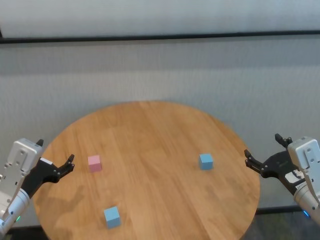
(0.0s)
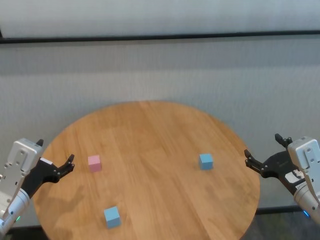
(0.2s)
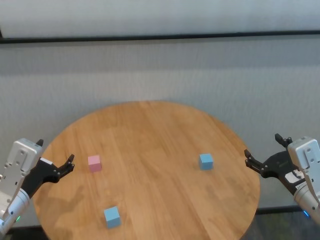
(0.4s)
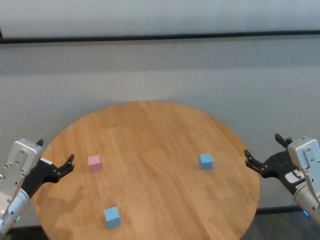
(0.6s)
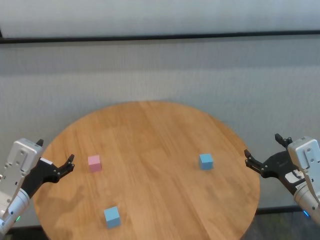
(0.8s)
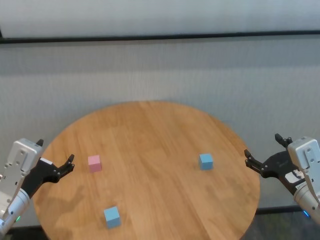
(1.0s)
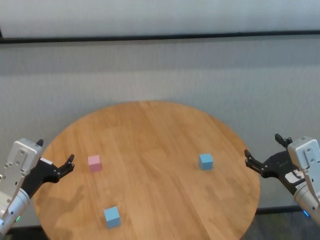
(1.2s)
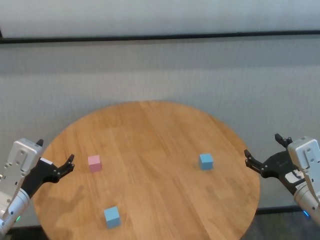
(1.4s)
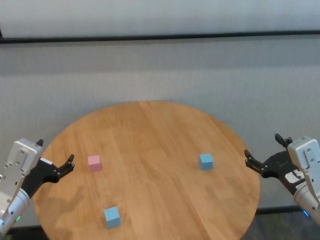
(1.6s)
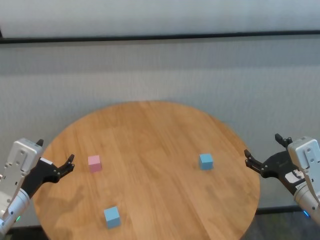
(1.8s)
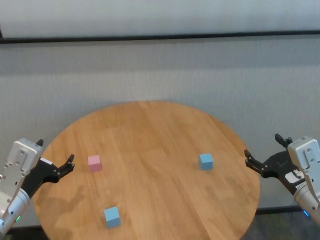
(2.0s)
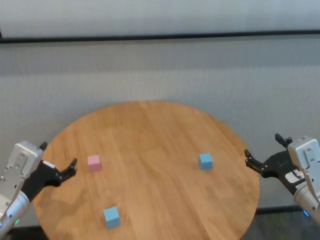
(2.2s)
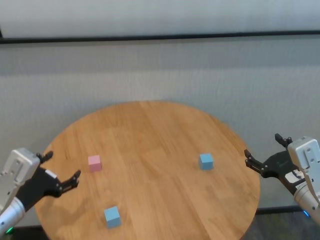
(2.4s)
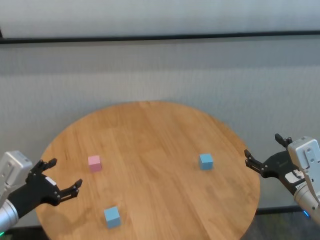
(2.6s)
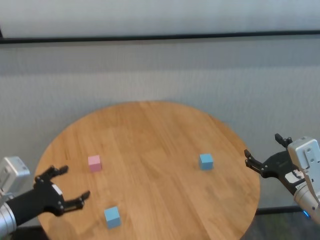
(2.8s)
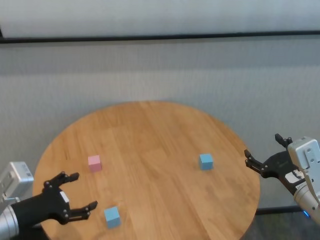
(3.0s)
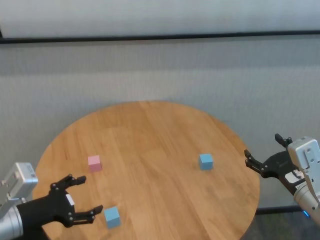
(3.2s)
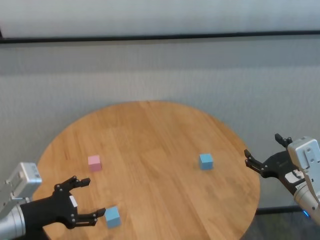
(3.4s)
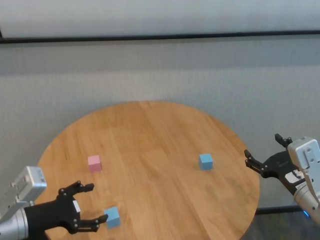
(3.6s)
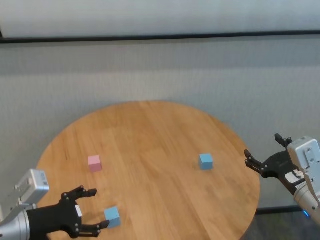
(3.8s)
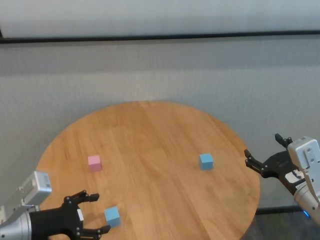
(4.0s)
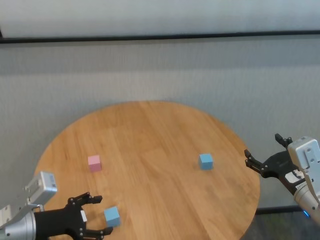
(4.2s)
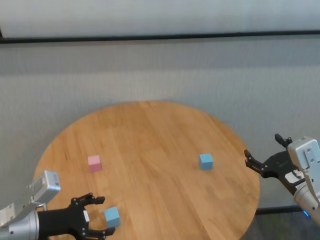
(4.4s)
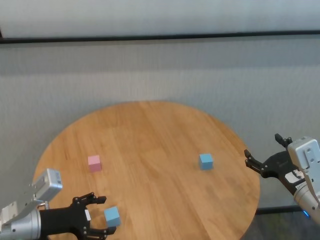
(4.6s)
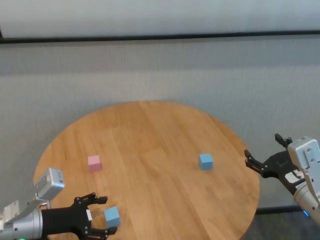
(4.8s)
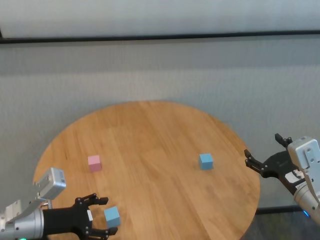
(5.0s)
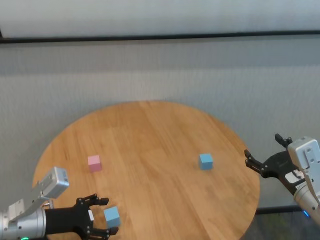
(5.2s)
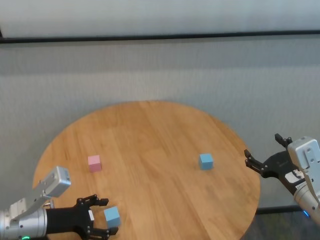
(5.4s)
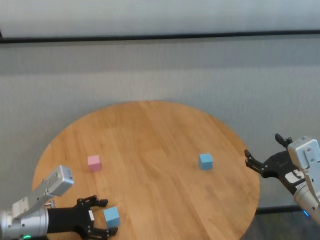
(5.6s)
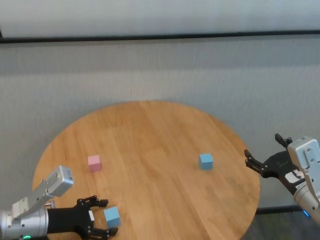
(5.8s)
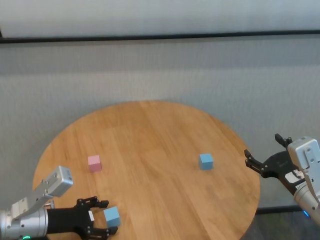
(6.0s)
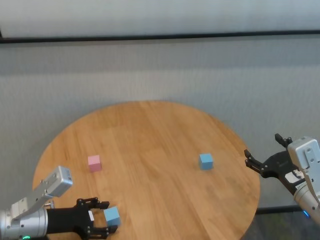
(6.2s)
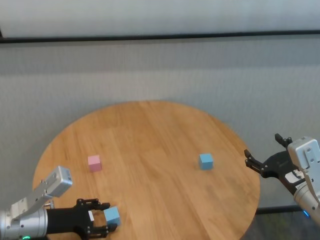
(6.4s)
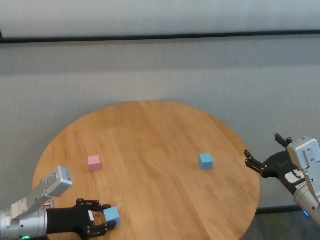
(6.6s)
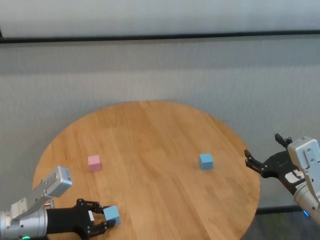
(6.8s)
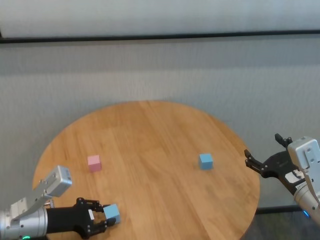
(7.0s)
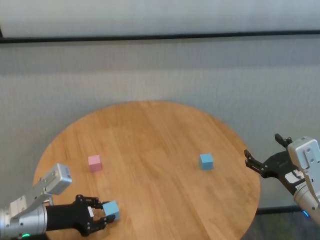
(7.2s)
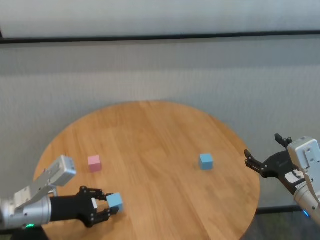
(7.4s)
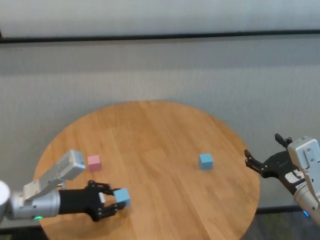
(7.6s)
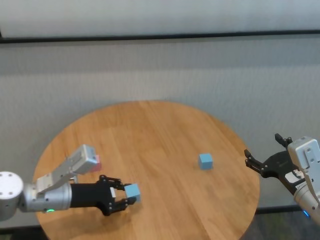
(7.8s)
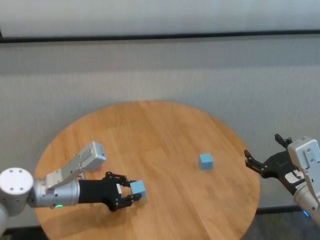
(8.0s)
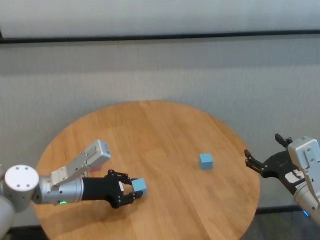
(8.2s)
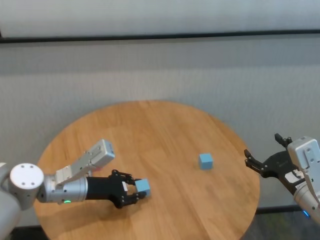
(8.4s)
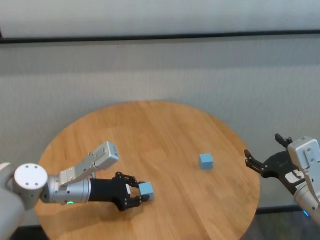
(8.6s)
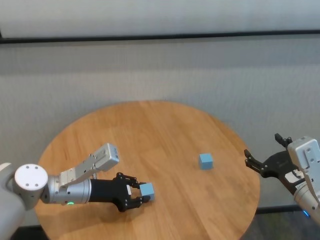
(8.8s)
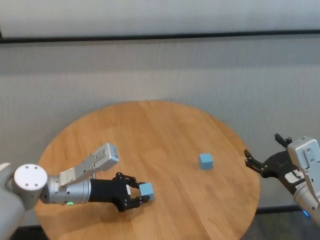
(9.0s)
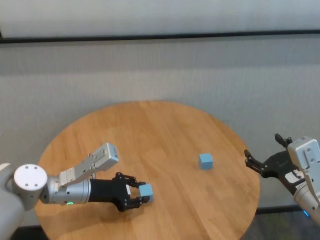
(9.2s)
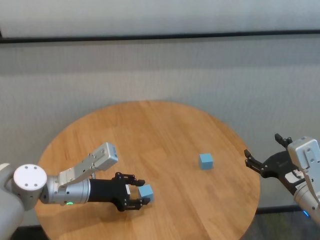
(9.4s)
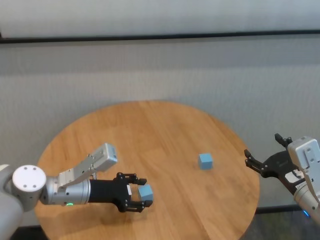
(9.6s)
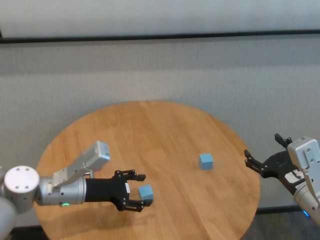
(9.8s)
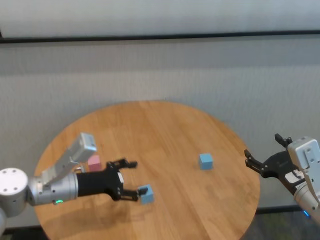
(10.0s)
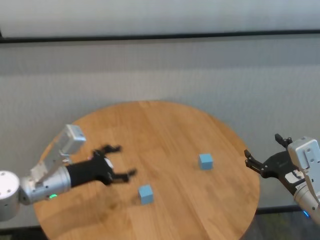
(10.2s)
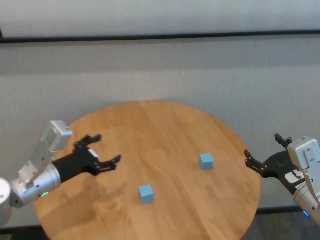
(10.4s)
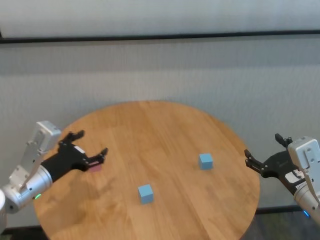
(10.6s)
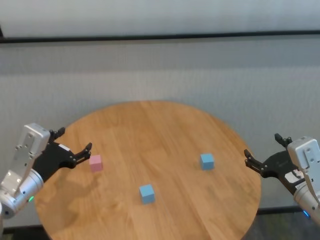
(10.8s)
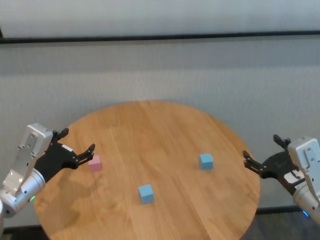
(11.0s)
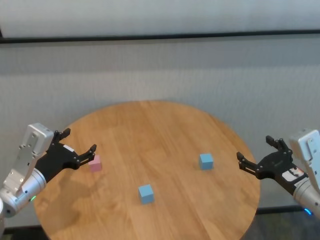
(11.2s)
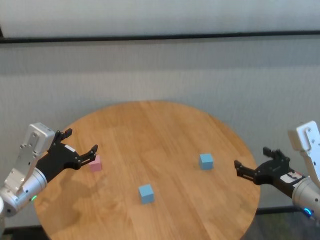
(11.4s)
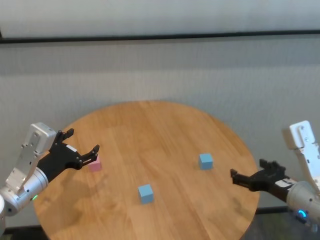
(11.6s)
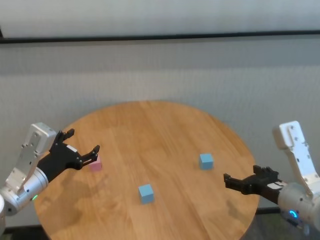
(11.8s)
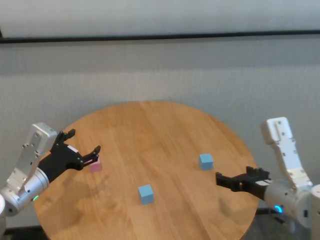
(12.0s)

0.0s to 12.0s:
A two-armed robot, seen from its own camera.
Task of the whole recording: stack building blocks on the table.
Step, 0.0s to 6.6s: Grasp the blue building block with left gripper.
Step, 7.0s to 9.4s: Place the blue building block in the center of table with left gripper.

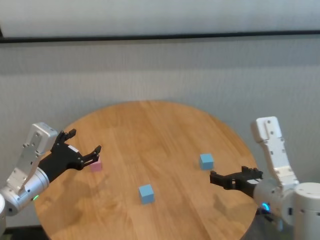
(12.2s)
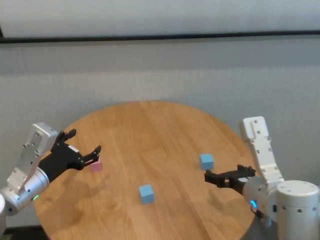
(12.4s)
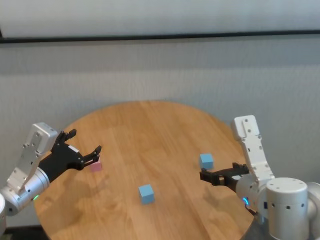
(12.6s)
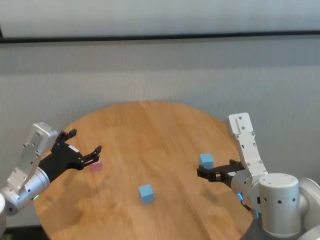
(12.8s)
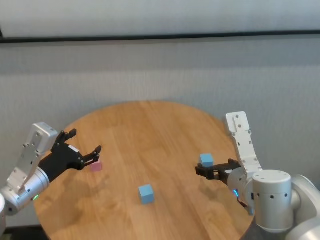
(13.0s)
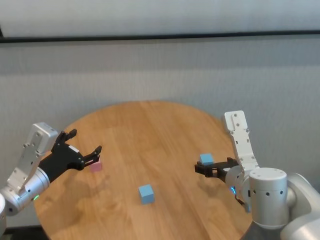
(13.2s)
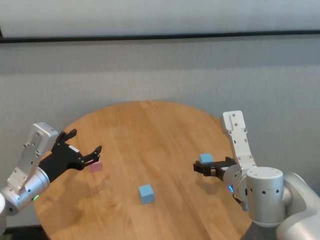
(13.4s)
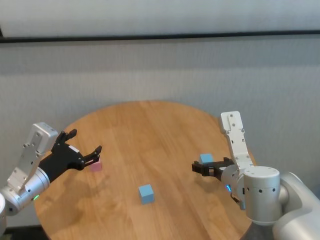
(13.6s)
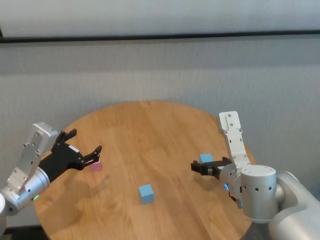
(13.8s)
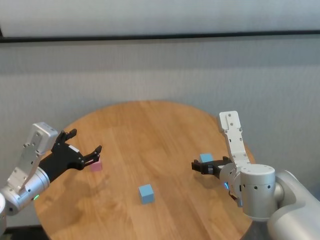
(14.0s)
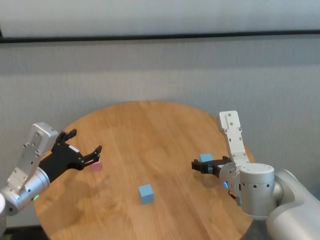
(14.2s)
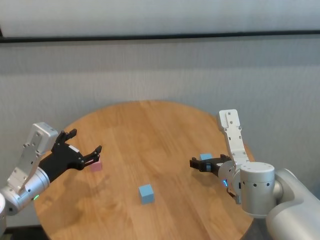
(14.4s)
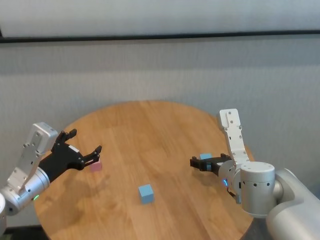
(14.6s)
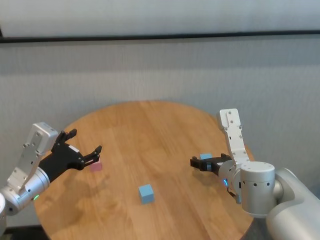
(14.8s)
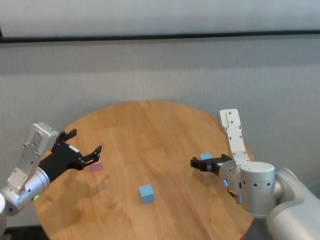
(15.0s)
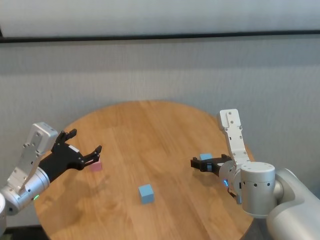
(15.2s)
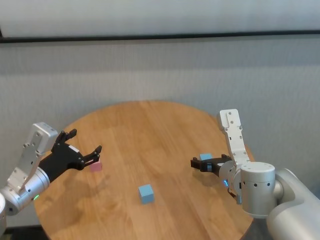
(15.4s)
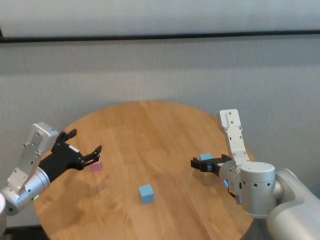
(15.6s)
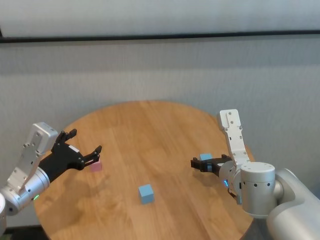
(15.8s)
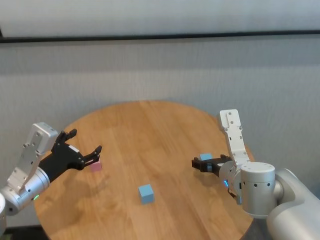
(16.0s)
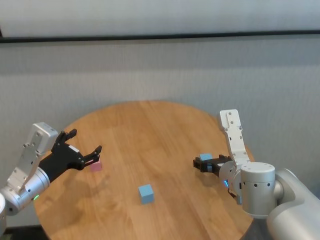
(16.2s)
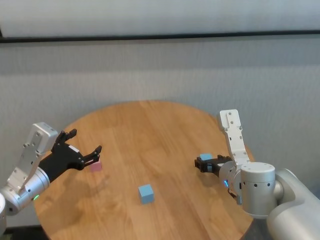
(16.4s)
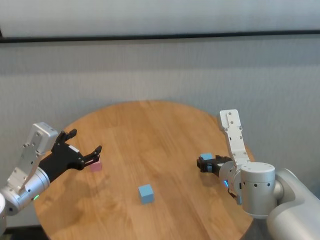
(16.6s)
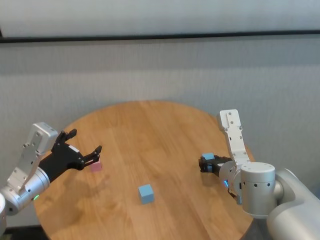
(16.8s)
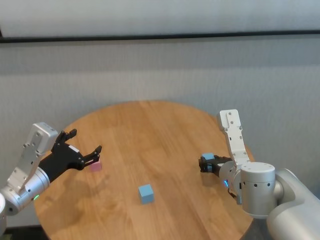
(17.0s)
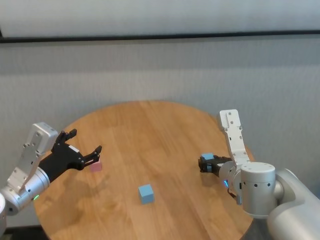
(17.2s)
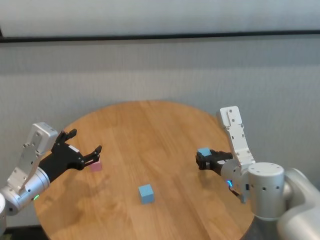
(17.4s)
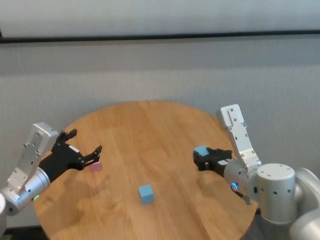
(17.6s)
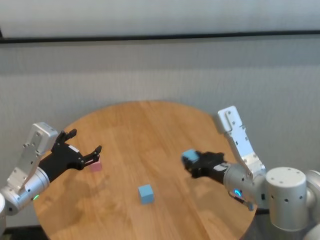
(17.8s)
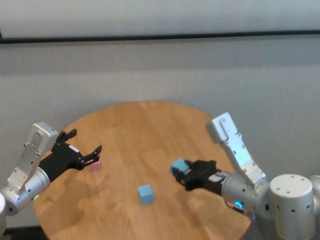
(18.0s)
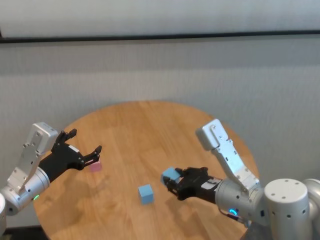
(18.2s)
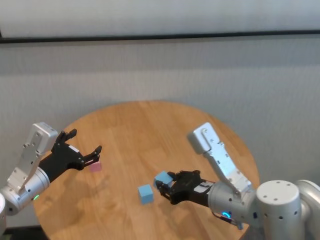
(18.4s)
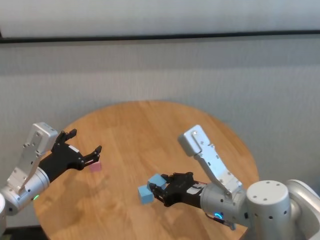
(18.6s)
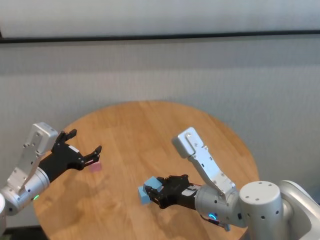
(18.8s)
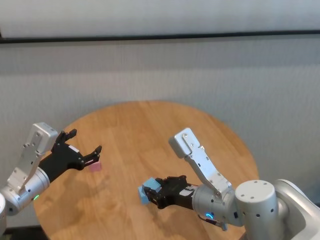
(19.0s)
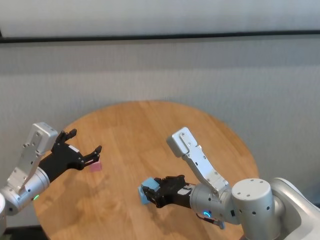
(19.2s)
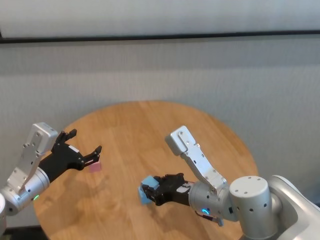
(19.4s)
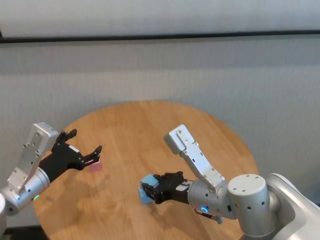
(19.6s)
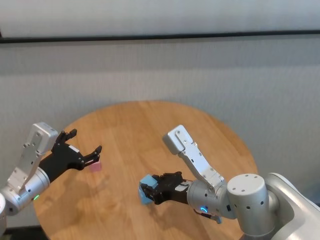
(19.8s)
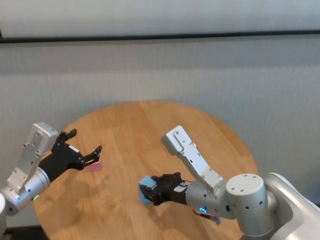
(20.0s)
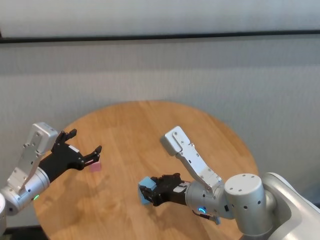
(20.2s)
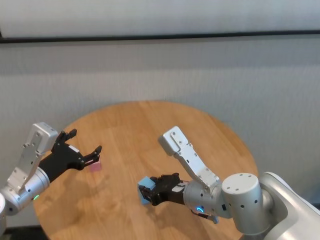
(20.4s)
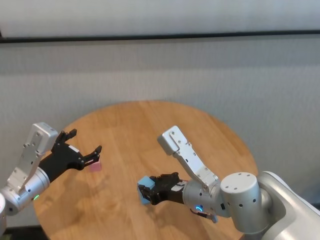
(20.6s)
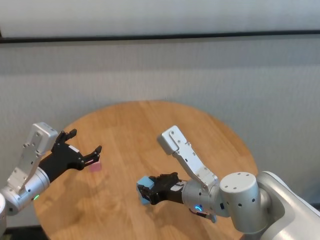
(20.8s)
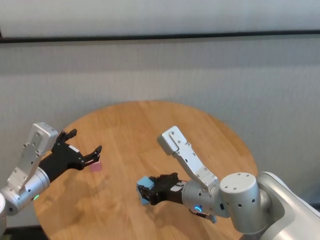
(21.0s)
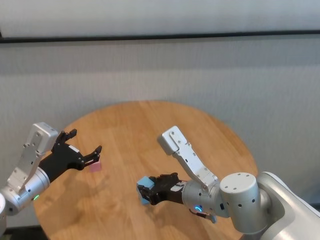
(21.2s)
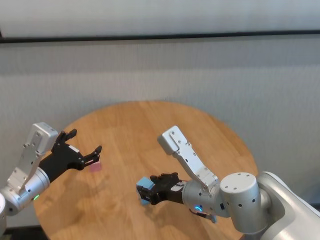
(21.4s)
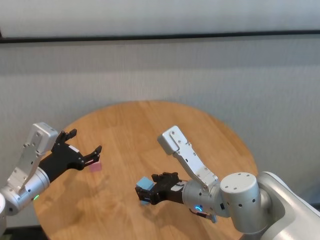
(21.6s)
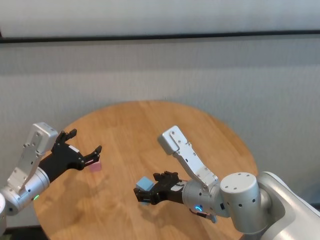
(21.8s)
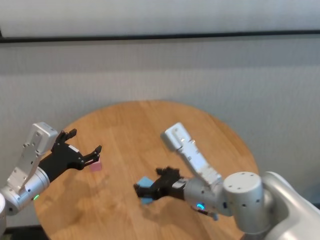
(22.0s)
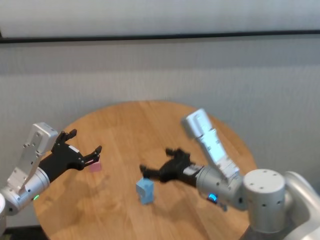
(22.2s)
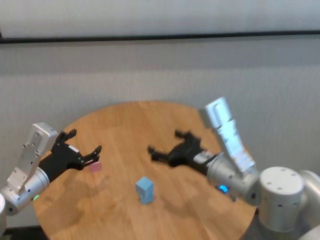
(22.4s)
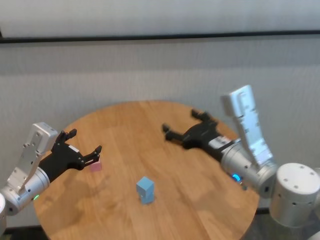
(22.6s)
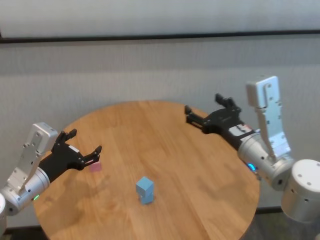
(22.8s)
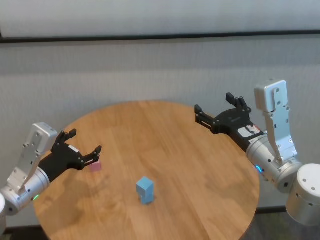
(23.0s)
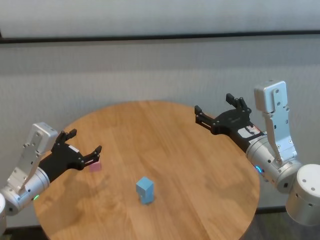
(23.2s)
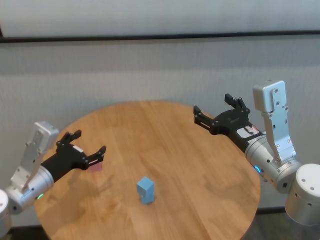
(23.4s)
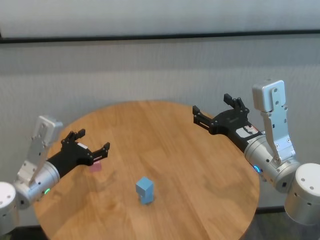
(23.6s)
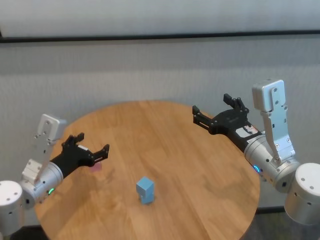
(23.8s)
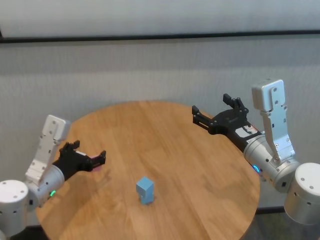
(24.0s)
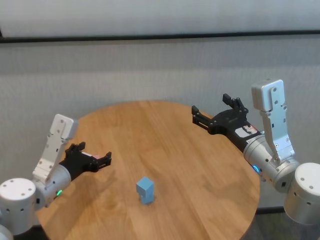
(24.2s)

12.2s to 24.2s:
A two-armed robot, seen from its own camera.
Task of the whole recording: stack building blocks on the table.
Step, 12.2s to 17.0s: Grasp the blue building block with right gripper.
Step, 17.2s to 21.8s: Place the blue building block on the blue building blocks with right gripper.
